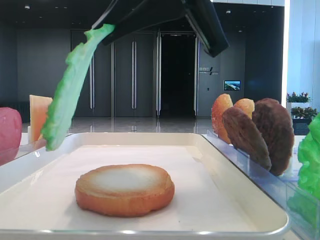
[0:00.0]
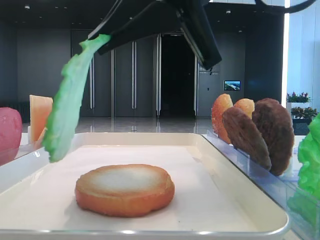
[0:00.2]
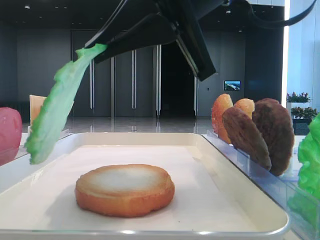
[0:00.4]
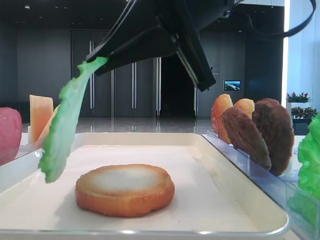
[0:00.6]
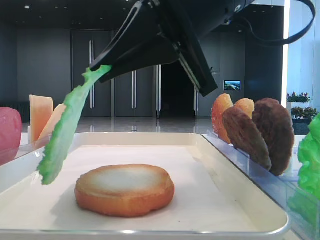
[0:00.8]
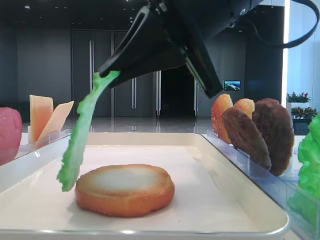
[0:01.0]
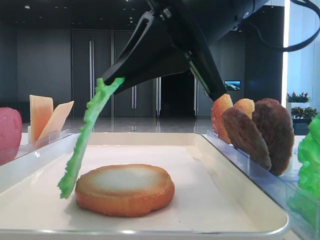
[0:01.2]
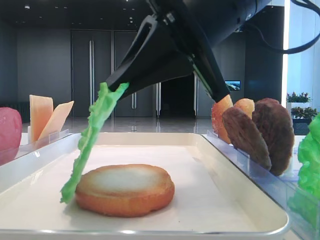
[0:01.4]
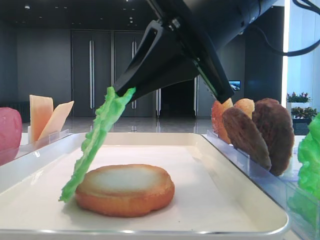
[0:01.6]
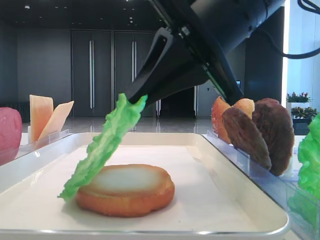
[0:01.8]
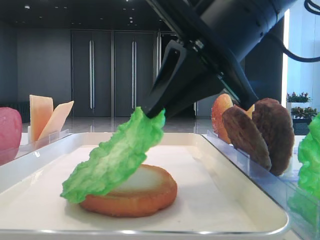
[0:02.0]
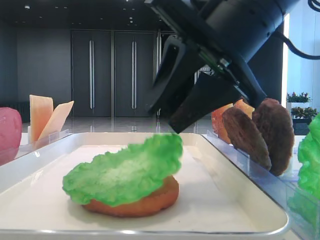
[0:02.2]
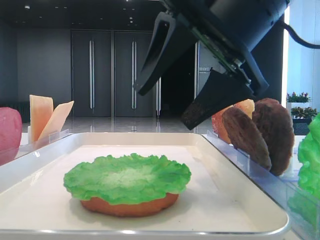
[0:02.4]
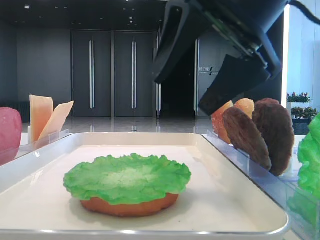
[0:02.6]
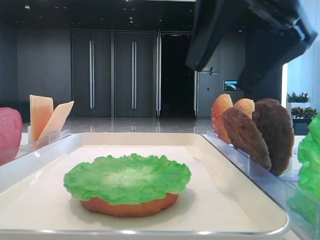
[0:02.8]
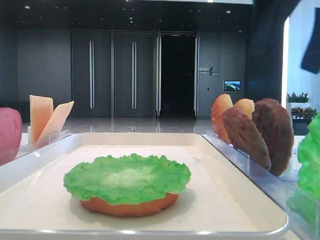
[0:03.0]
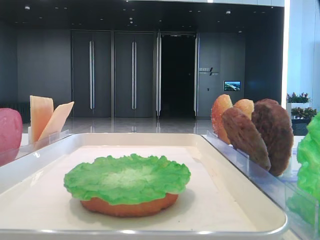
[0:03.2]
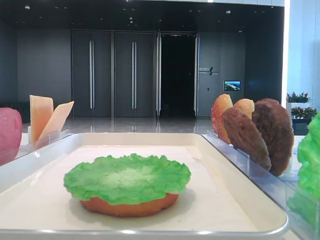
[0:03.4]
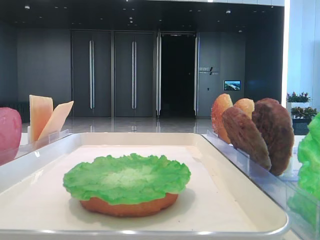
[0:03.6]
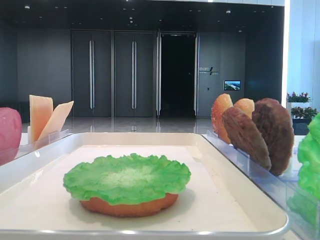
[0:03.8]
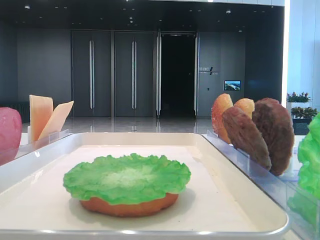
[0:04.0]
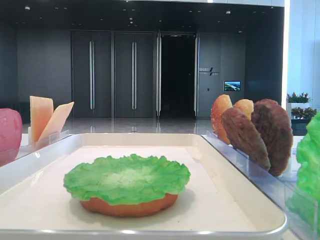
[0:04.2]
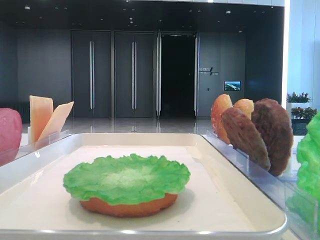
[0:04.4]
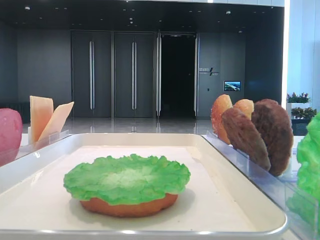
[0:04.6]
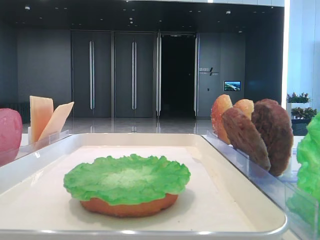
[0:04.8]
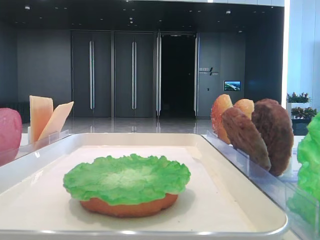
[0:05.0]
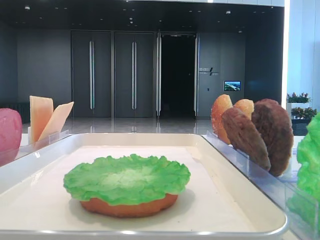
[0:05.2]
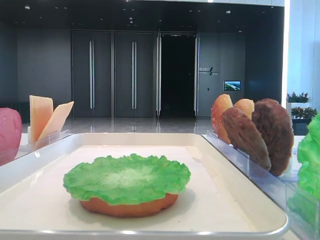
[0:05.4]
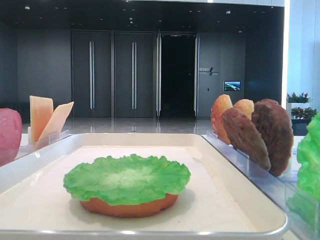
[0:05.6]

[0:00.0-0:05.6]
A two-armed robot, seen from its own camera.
Step, 0:00.0 to 0:02.2: Place the lettuce leaf on the bottom bread with the right hand.
0:00.0 to 0:01.4: The right gripper changes place by some 5 cm.
0:01.4 to 0:02.8: The right gripper is displaced to the right by some 5 cm, and opens up.
0:02.8 to 0:04.2: The right gripper heads to the right and backward, covering approximately 20 cm.

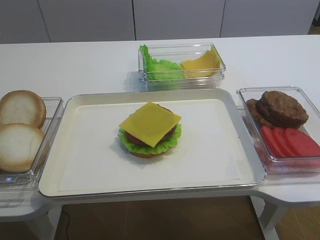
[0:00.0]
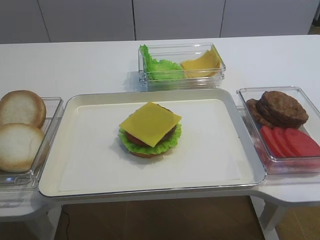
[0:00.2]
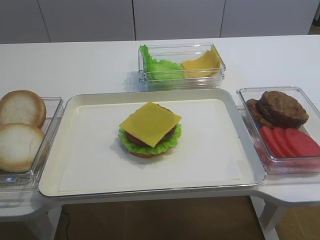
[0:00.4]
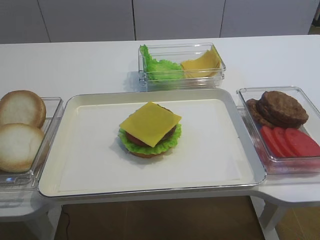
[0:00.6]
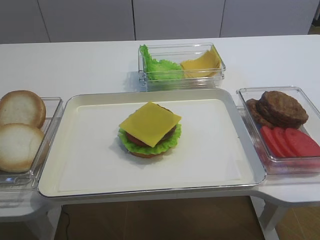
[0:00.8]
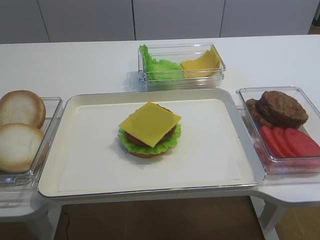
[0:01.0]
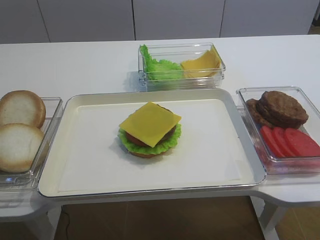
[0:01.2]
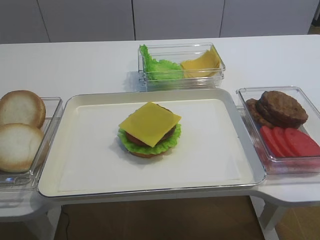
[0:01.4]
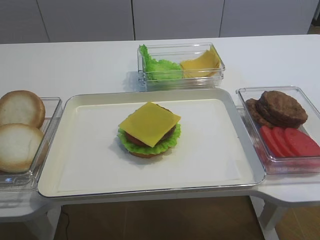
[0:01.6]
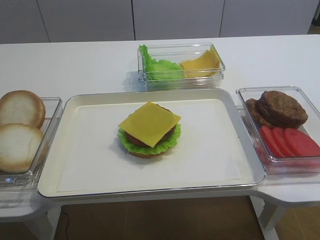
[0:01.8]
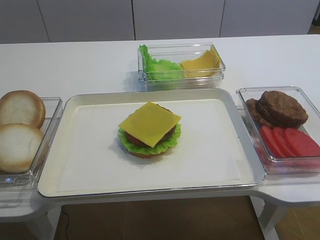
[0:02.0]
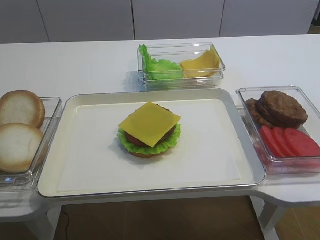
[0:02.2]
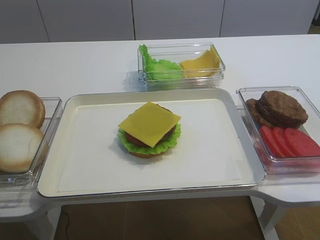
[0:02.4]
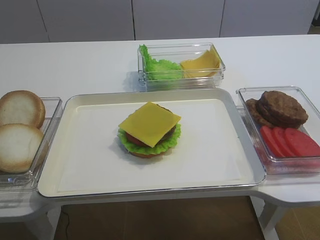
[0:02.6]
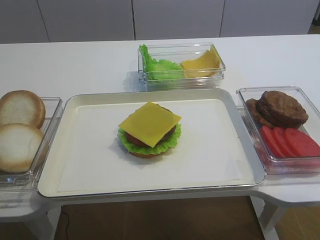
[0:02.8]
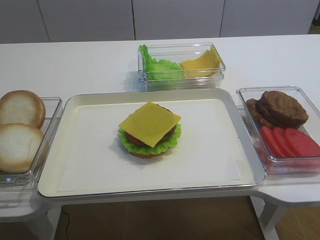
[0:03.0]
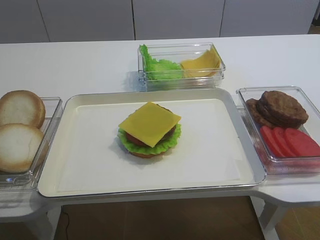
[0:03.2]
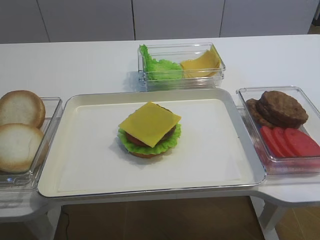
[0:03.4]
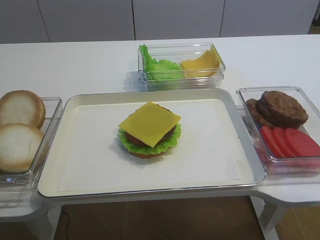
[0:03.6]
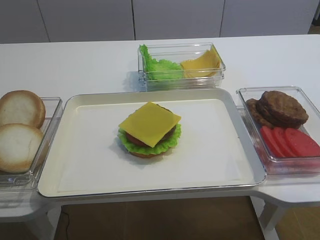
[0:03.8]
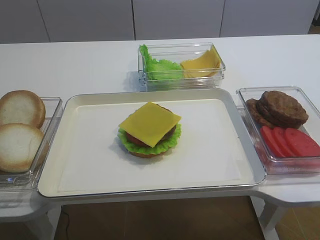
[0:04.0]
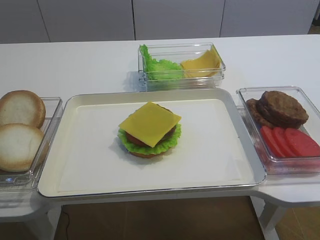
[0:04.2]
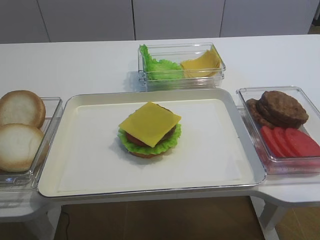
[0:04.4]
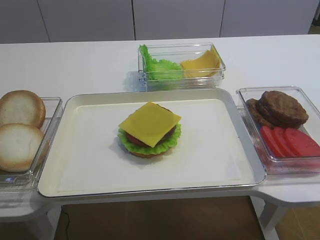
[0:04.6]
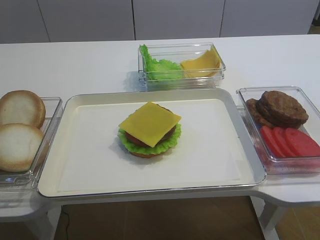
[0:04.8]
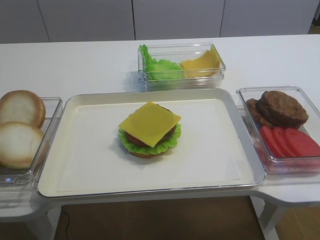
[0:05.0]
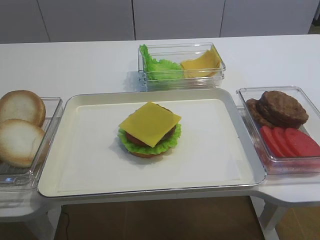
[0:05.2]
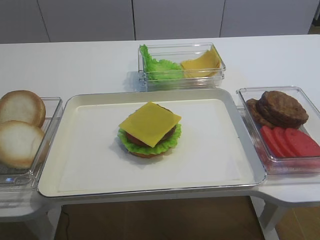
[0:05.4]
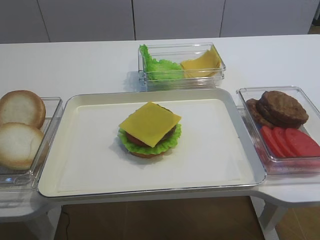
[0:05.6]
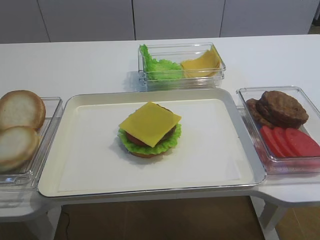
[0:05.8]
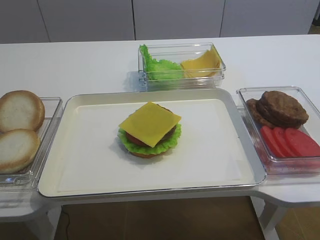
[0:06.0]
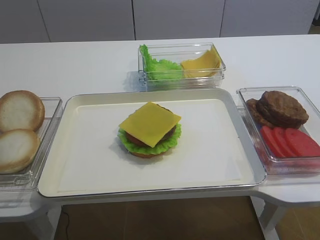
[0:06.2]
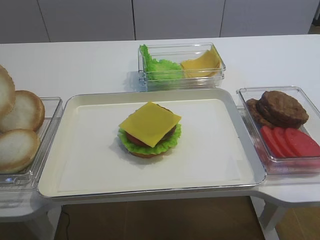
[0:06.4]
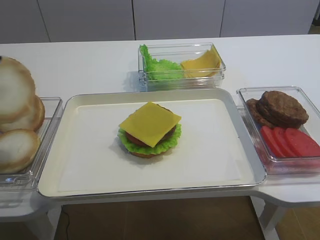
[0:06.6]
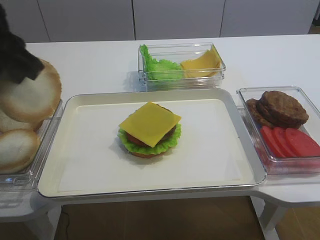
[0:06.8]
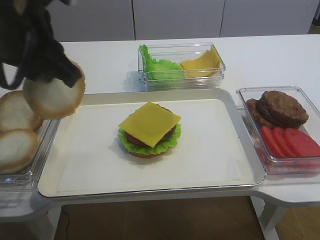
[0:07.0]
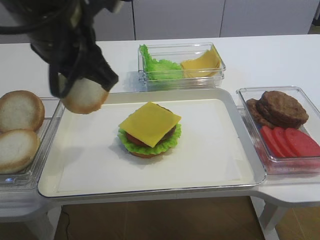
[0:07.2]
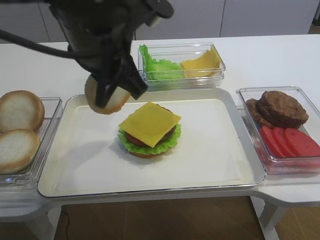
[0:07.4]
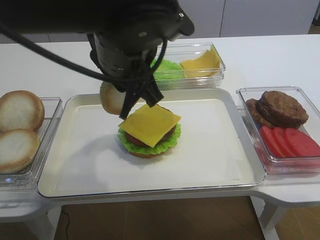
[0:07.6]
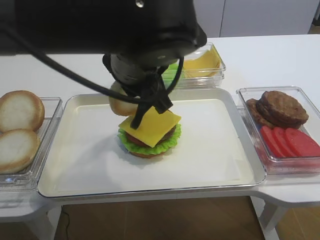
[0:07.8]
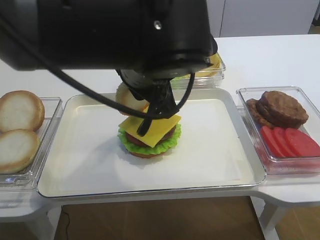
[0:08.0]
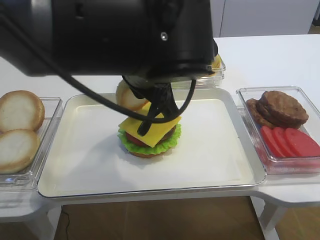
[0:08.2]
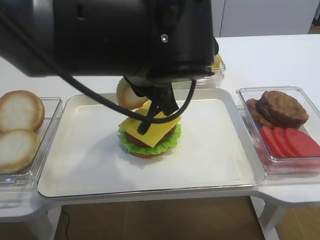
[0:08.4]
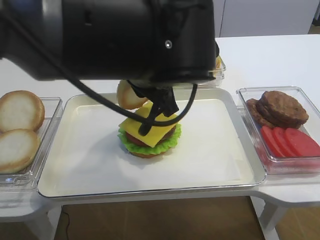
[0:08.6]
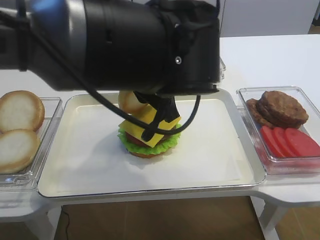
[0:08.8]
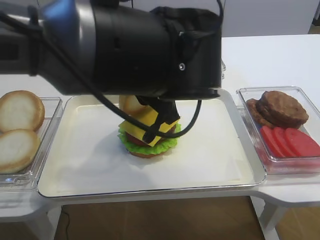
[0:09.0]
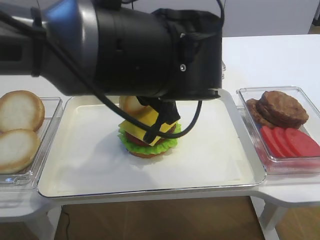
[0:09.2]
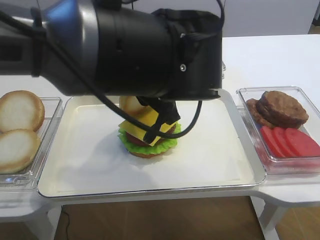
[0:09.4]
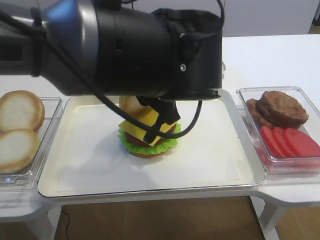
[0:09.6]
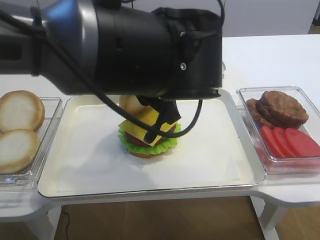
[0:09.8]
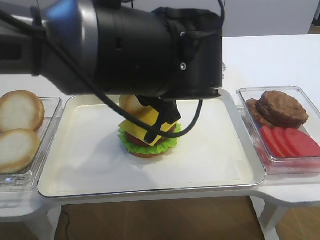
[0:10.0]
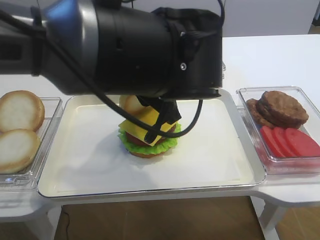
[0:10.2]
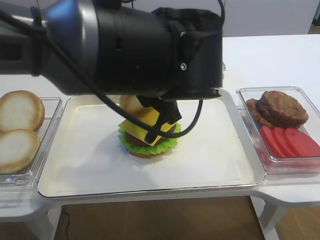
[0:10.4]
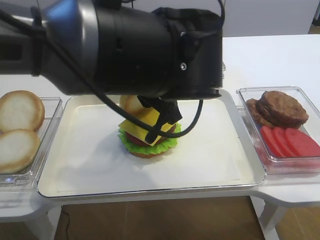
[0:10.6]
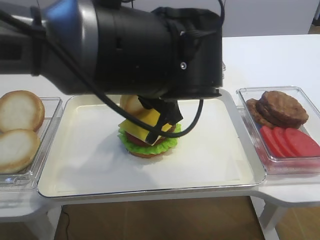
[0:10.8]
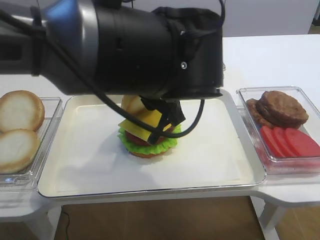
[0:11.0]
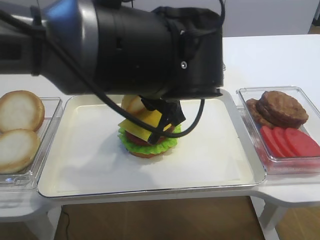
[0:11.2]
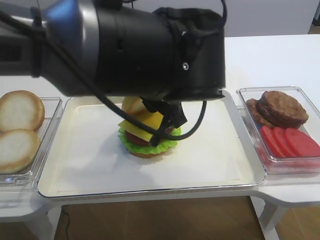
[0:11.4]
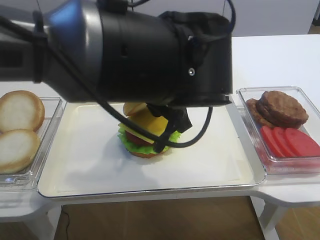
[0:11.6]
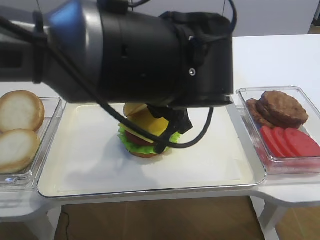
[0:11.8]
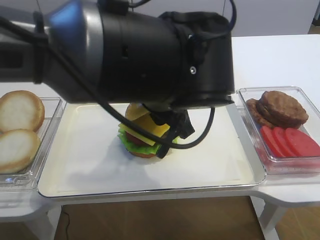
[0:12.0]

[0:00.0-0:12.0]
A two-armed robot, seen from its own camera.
Step, 0:00.0 to 0:05.8: Pick up the hamburger lid with the left gripper.
0:04.4 to 0:06.0: The left gripper goes about 10 cm upward.
0:06.0 to 0:07.6: The left gripper is displaced to the right by some 30 cm.
0:07.6 to 0:09.0: The left gripper moves about 5 cm.
0:09.0 to 0:10.4: The two grippers keep their place.
0:10.4 to 0:12.0: There are only small adjustments of the grippers.

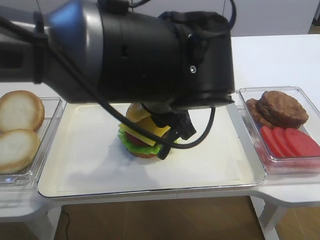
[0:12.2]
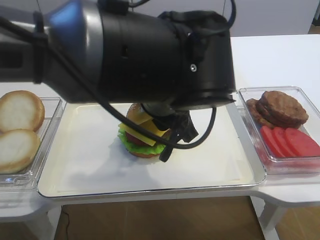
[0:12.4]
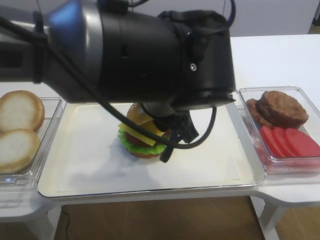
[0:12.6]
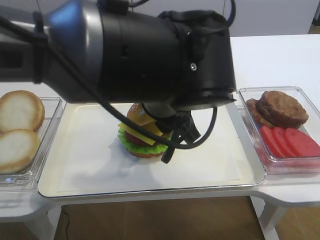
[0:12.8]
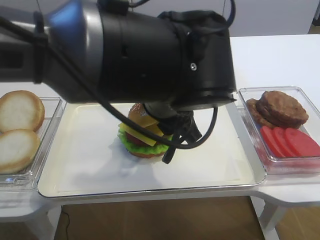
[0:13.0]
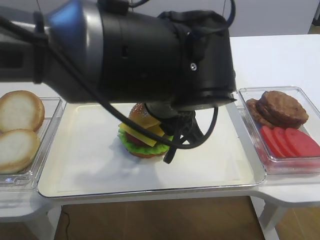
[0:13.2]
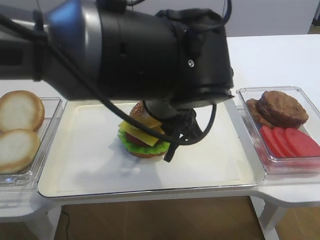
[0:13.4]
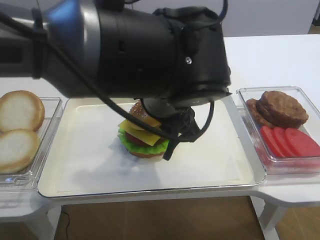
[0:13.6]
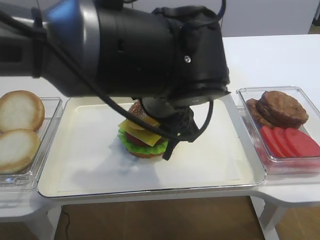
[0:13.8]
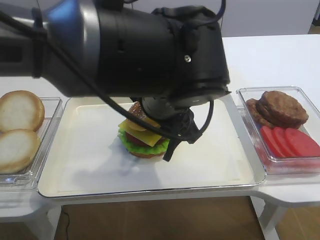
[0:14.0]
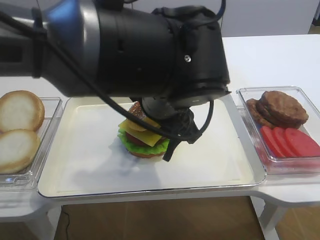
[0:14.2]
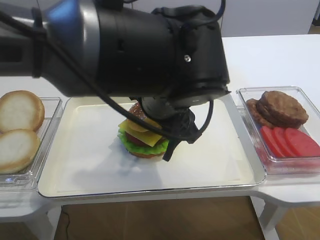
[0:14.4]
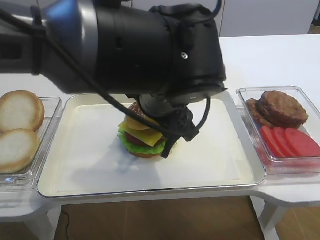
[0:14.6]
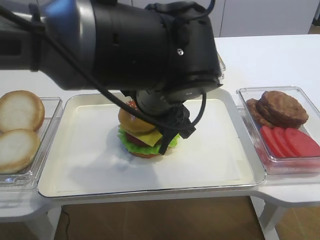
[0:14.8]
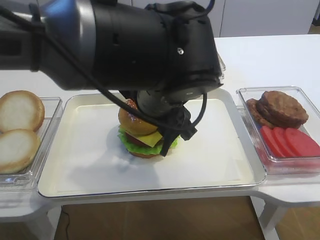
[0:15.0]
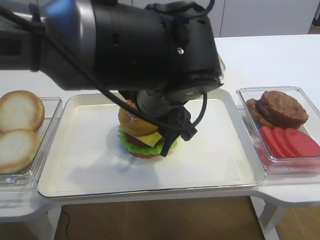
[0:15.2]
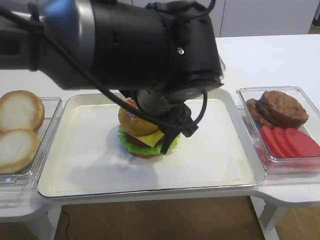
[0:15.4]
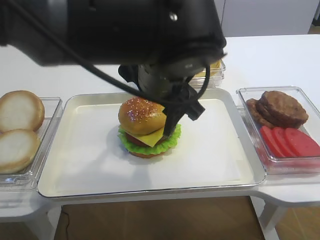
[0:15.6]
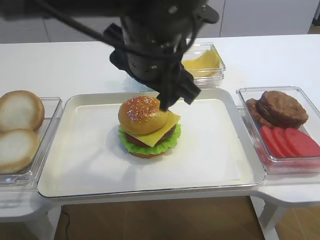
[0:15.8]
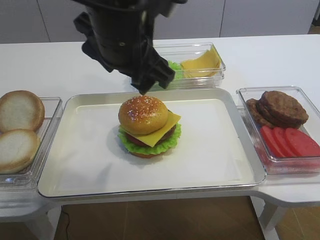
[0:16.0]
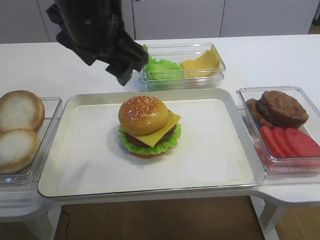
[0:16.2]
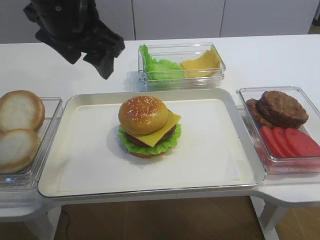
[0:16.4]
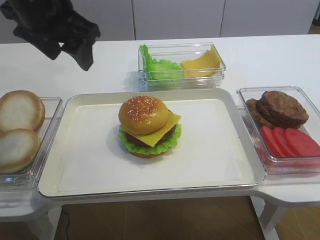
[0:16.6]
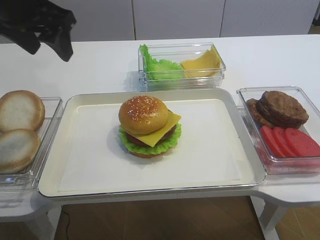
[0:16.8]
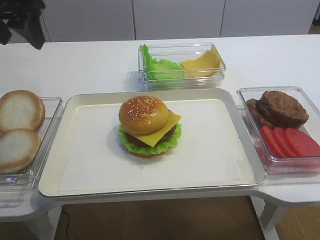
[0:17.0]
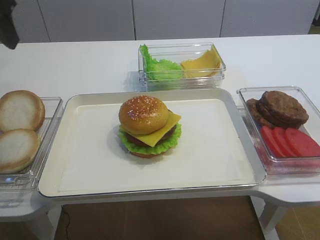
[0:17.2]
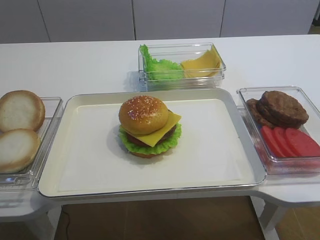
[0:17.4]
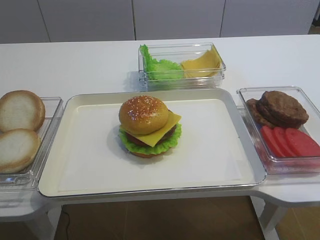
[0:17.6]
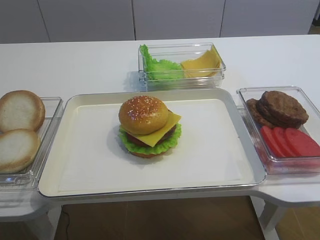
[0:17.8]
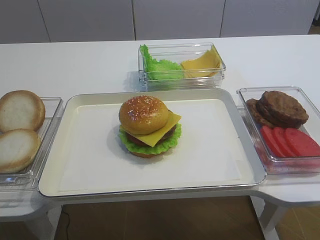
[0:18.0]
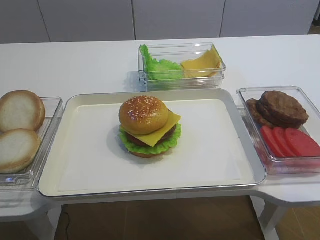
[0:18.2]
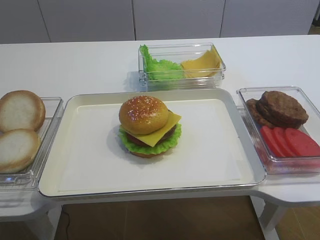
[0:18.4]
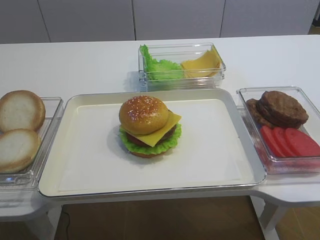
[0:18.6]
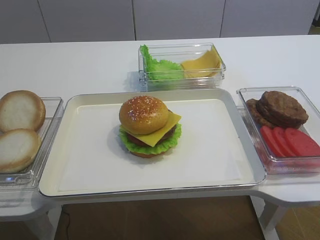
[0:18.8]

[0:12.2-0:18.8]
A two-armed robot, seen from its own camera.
Step, 0:12.2 to 0:15.8: Place the hamburger lid on the cheese slice with the left gripper.
0:12.2 to 0:13.8: The left gripper opens.
0:13.8 to 0:15.4: Neither gripper changes place.
0:15.4 to 0:17.2: The left gripper is displaced to the left and upward by about 30 cm.
0:17.2 to 0:18.8: The left gripper travels backward by approximately 35 cm.
